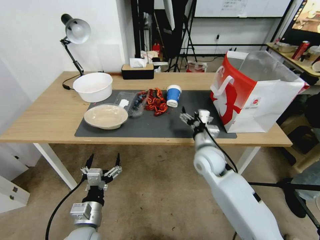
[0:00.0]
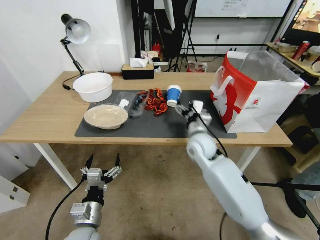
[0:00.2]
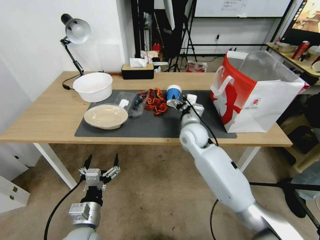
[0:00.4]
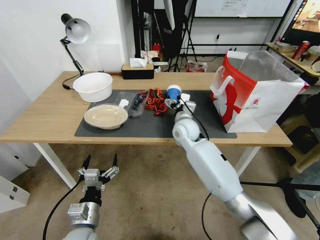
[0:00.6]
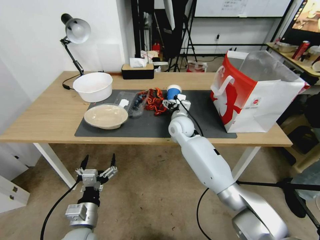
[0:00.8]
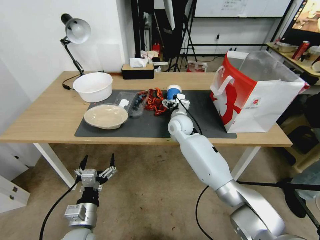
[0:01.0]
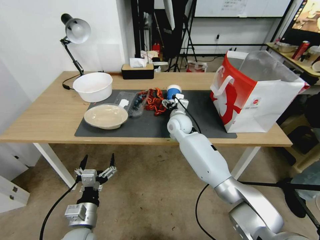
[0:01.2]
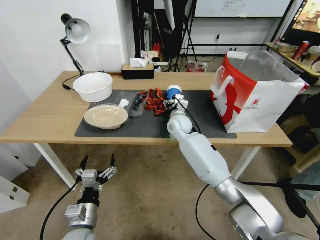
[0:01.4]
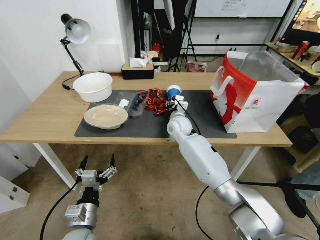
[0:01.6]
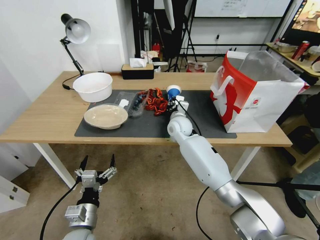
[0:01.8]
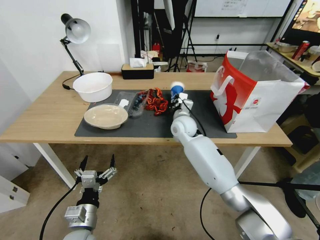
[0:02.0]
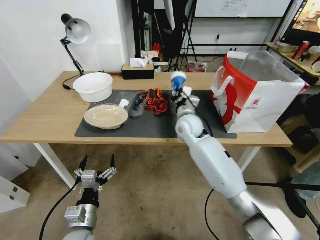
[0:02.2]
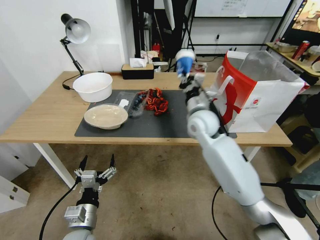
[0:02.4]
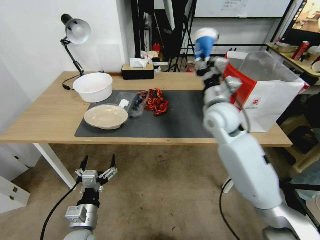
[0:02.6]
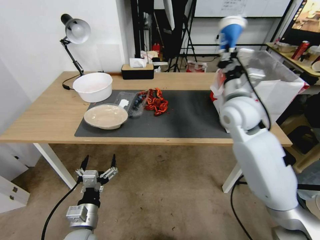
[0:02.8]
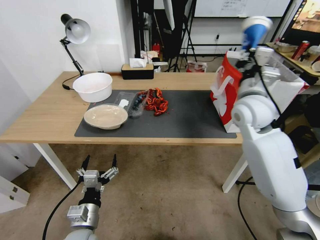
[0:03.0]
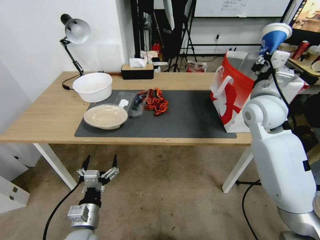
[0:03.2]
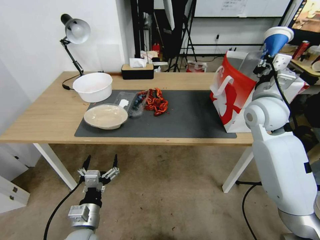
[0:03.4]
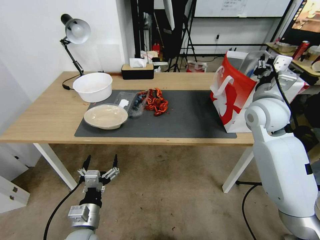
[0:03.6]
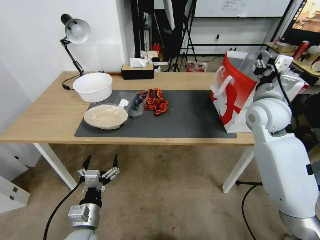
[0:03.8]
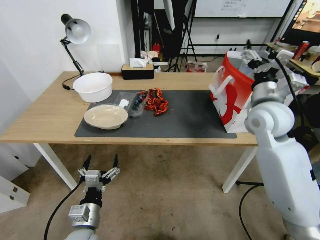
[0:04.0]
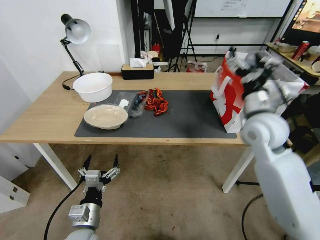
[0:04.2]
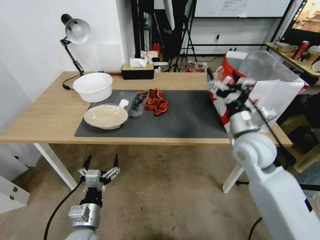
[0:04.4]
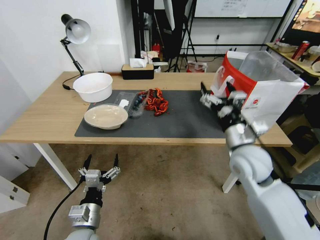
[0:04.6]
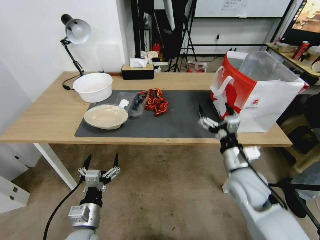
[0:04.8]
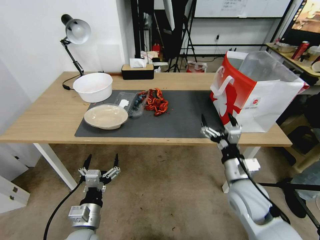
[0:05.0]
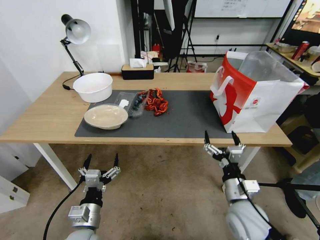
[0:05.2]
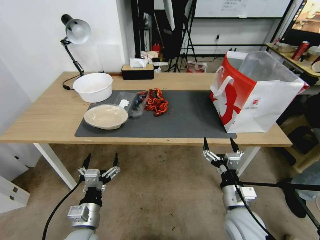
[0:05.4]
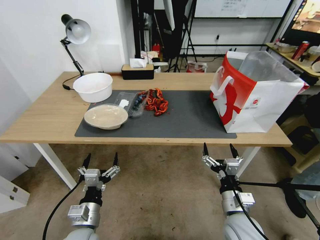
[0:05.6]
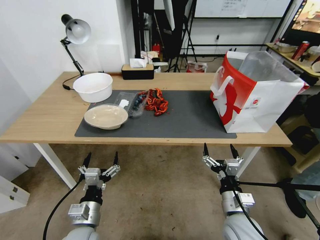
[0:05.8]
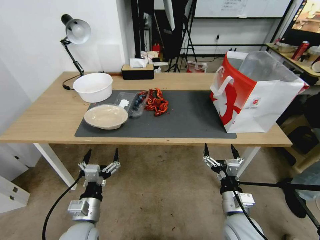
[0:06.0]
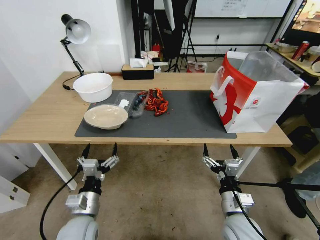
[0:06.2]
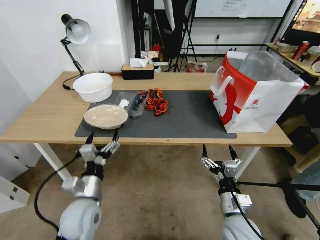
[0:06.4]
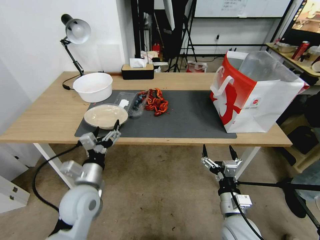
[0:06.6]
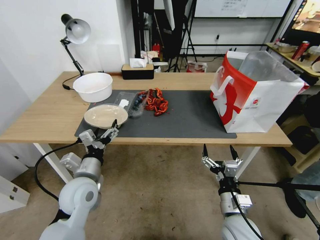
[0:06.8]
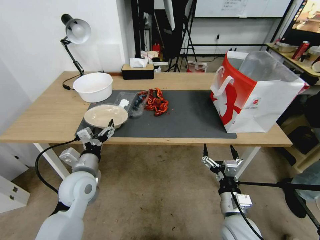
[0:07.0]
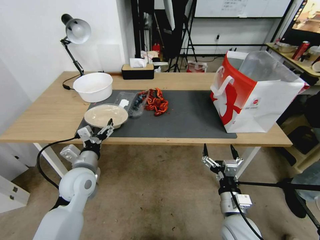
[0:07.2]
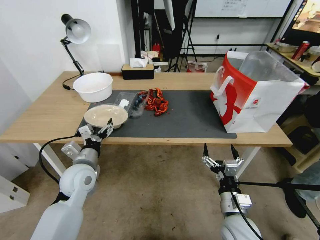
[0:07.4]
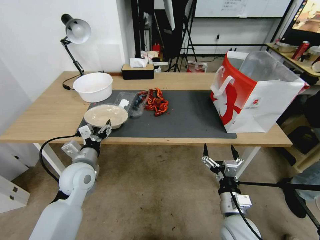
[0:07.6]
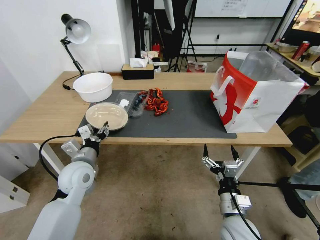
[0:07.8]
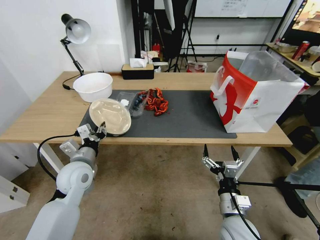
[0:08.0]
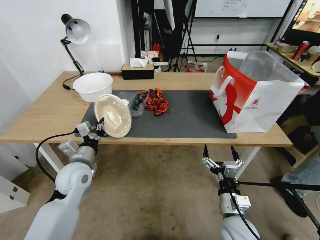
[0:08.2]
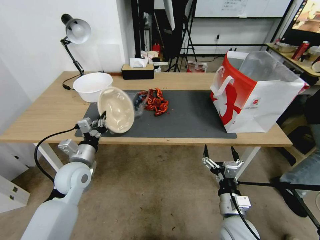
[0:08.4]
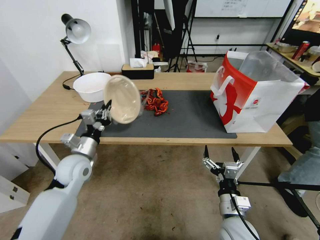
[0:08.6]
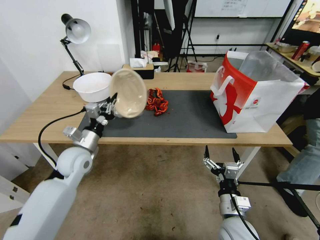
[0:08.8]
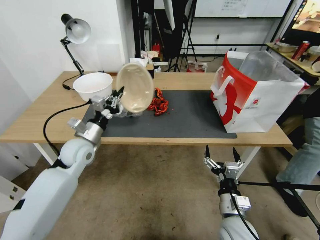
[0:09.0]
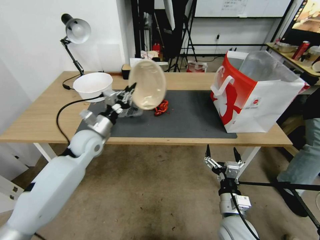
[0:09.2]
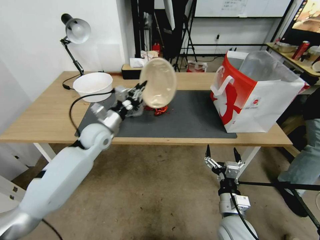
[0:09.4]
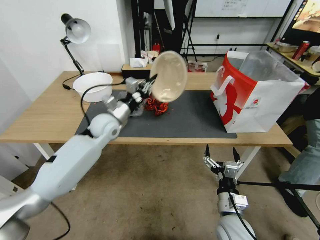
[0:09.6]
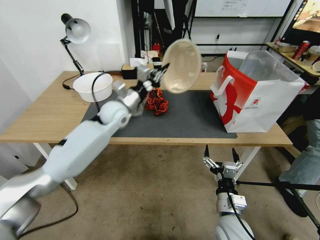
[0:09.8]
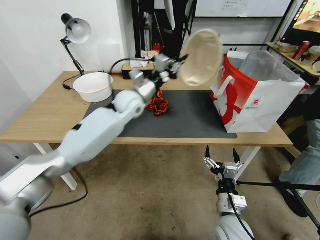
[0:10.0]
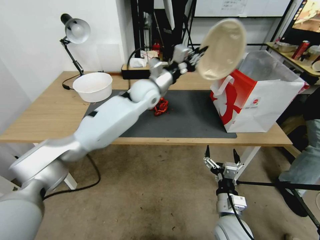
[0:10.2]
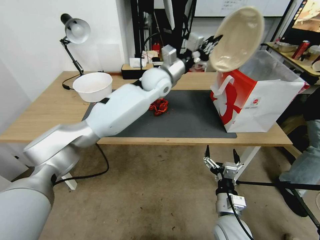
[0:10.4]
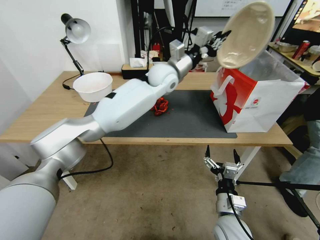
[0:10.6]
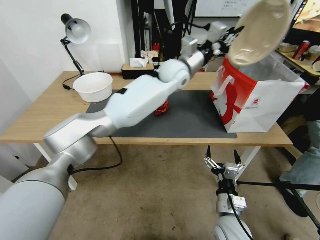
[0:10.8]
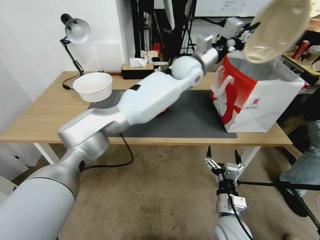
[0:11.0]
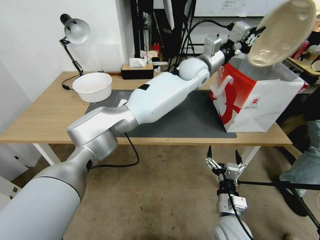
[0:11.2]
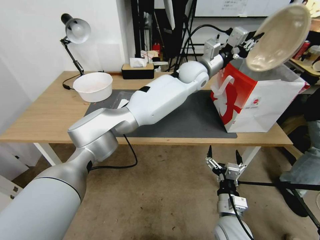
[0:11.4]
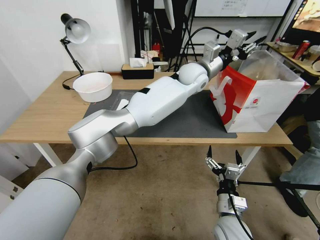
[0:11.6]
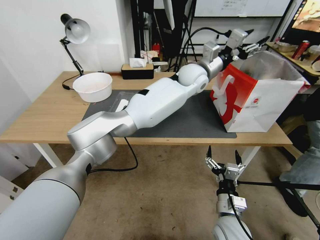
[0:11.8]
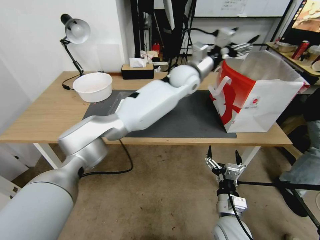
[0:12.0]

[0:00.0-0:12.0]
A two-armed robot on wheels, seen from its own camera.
0:00.0 to 0:01.6: The right gripper travels forward and to the left by approximately 15 cm, and closes.
0:01.6 to 0:03.0: The right gripper moves upward, to the right and backward, about 30 cm, and closes up.
0:03.0 to 0:04.4: The right gripper travels backward and downward by roughly 10 cm, and opens its fingers.
0:04.4 to 0:06.0: The right gripper travels downward and backward by about 25 cm.
0:06.0 to 0:07.6: The left gripper heads forward and upward, covering approximately 15 cm.
0:07.6 to 0:09.0: The left gripper is displaced forward by approximately 5 cm, and closes.
0:09.0 to 0:10.4: The left gripper goes approximately 35 cm to the right, forward and upward.
0:10.4 to 0:12.0: The left gripper goes approximately 10 cm to the right, and opens up.

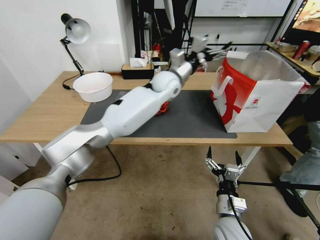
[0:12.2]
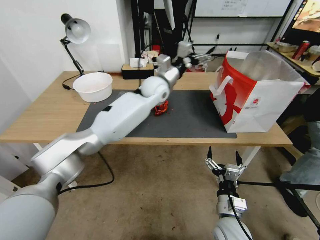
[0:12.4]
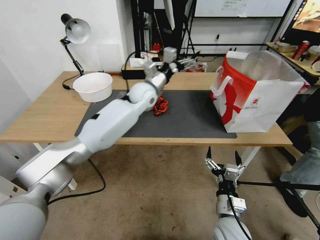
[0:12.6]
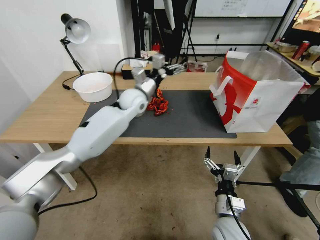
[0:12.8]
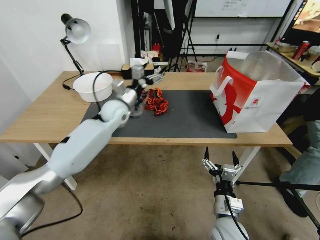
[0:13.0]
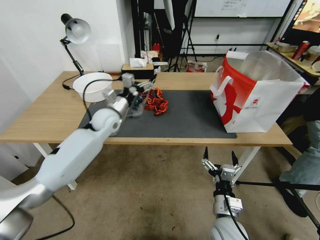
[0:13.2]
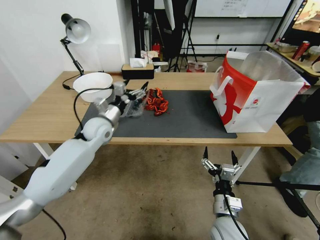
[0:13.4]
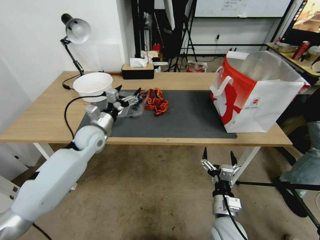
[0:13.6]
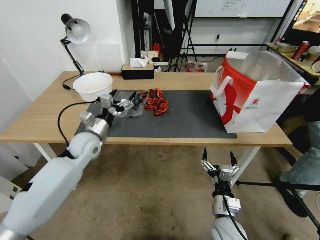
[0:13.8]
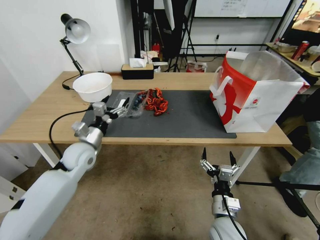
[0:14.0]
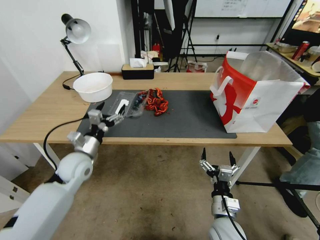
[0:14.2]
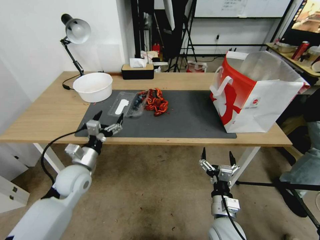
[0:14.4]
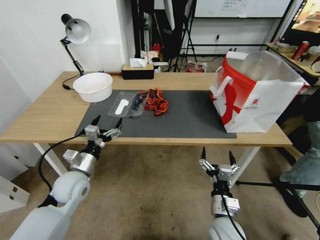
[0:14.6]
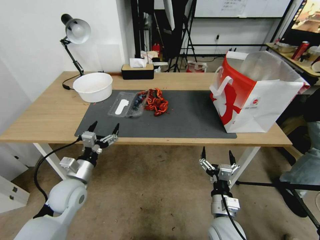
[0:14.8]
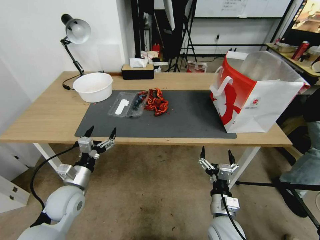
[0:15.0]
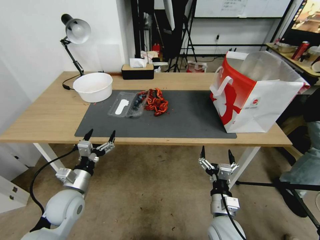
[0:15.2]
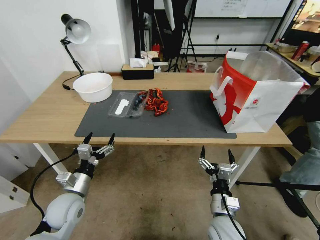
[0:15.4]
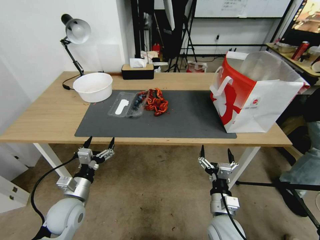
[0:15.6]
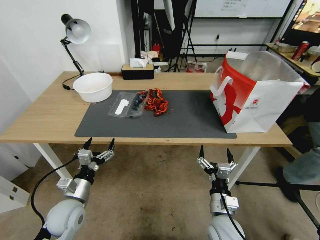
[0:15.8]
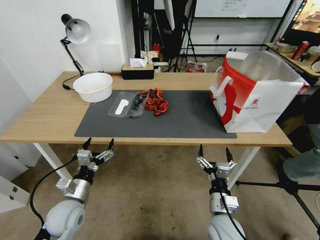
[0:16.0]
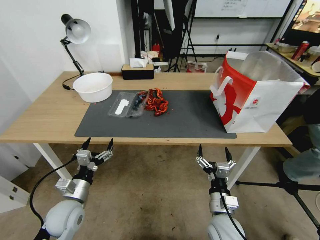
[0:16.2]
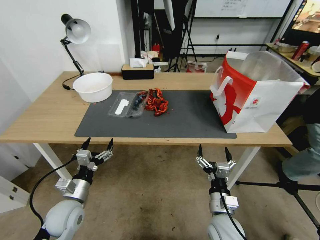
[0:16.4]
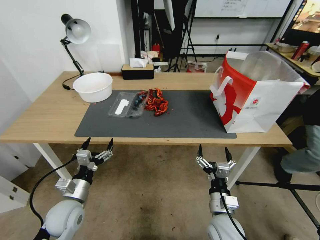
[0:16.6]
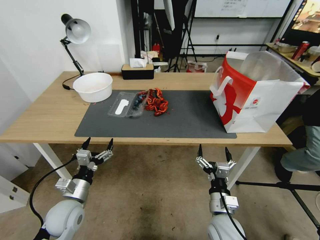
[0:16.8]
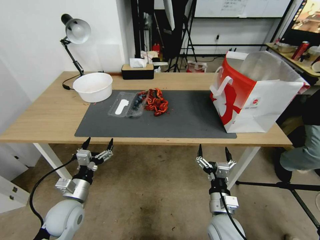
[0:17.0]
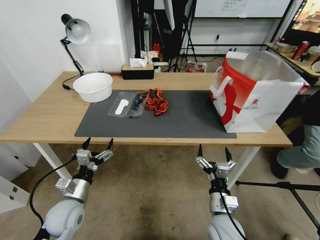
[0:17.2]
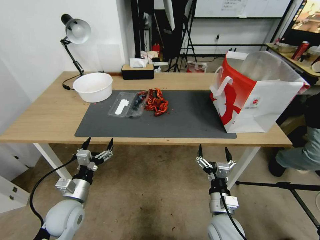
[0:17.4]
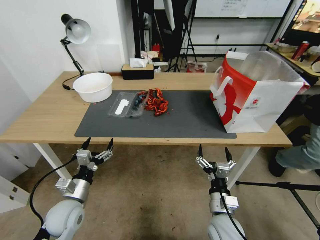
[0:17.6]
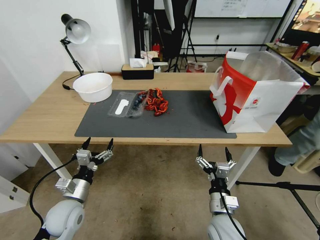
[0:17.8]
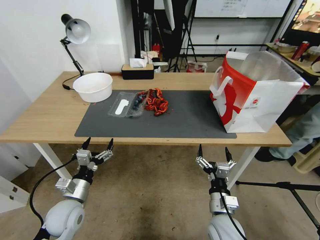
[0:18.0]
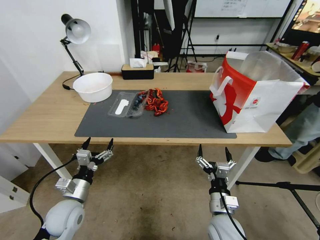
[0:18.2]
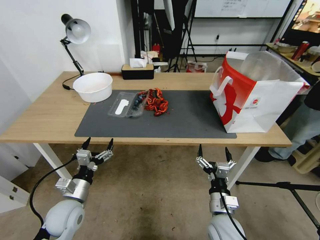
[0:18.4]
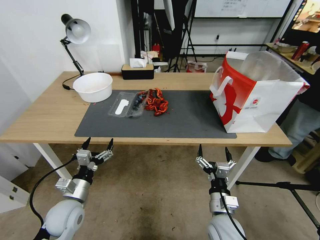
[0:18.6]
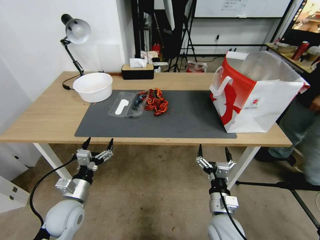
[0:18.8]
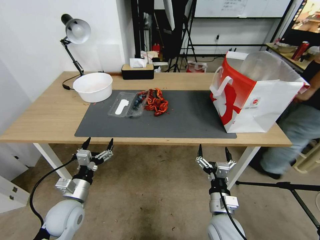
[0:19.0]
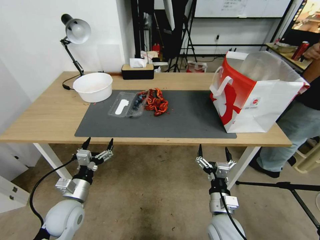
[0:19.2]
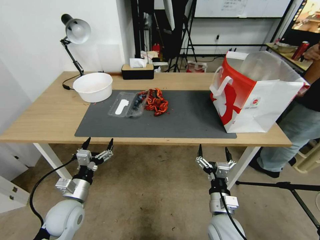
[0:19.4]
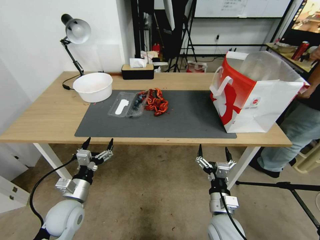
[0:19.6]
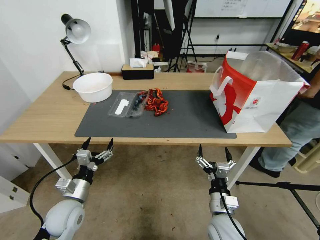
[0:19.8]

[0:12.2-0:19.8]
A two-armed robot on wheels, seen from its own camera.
0:12.2 to 0:13.8: The left gripper heads to the left, backward and downward, covering some 35 cm.
0:13.8 to 0:15.2: The left gripper shifts roughly 20 cm backward and downward.
0:15.2 to 0:16.8: The grippers stay close to where they were, moving slightly.
0:16.8 to 0:19.8: Both grippers stay about where they are.
